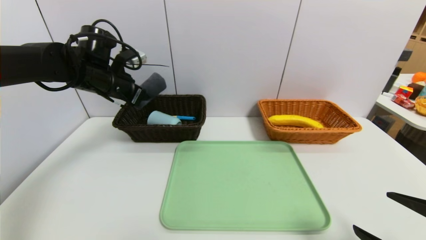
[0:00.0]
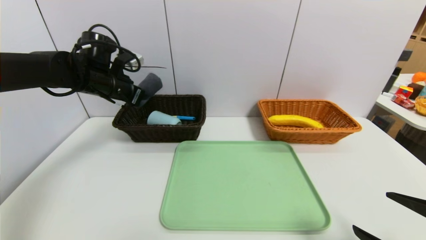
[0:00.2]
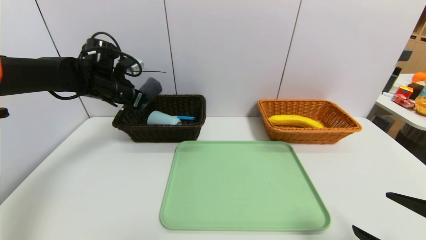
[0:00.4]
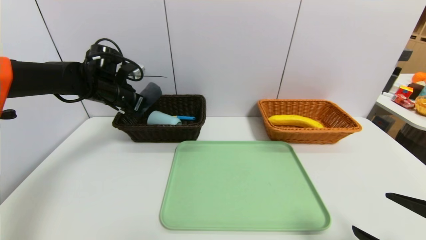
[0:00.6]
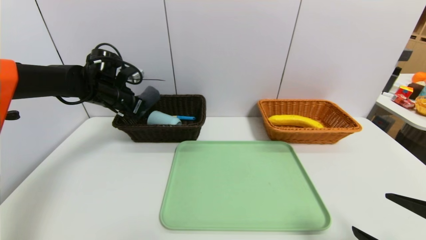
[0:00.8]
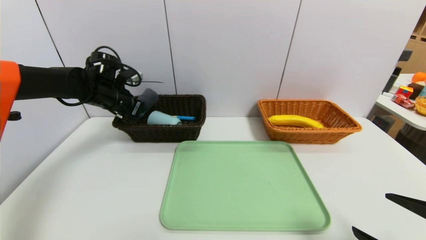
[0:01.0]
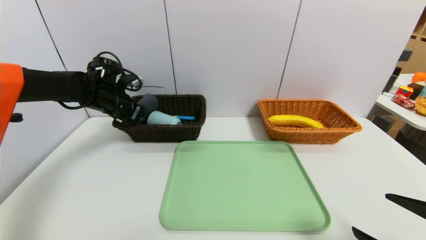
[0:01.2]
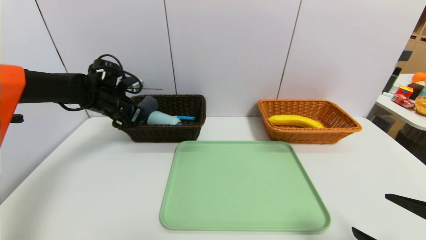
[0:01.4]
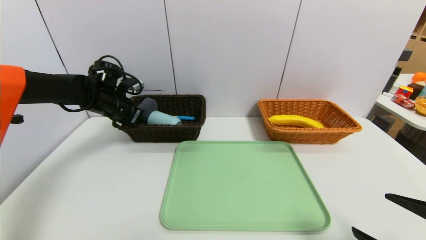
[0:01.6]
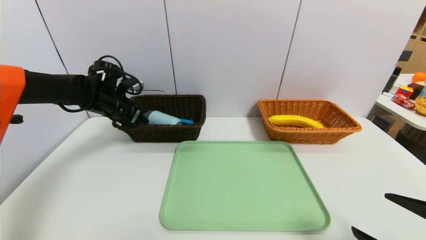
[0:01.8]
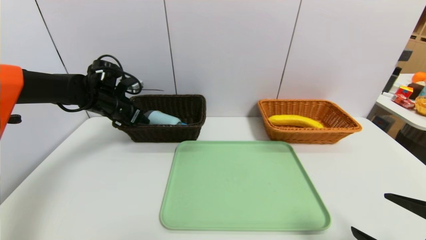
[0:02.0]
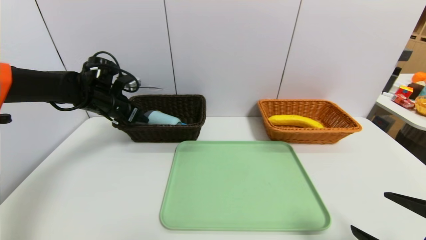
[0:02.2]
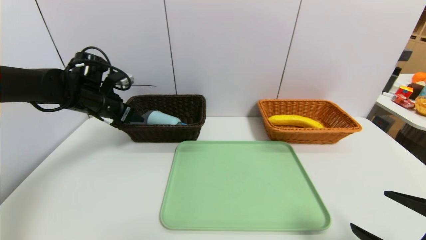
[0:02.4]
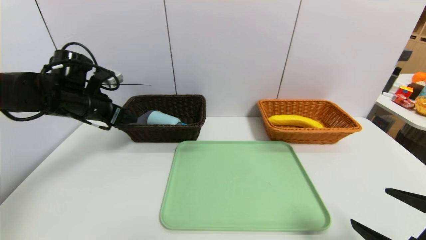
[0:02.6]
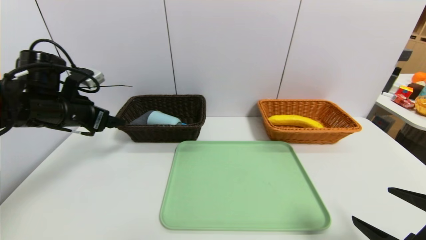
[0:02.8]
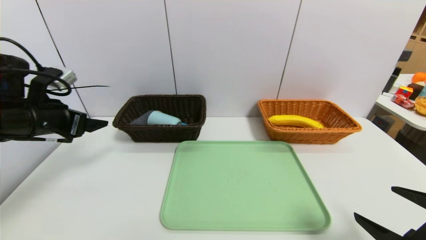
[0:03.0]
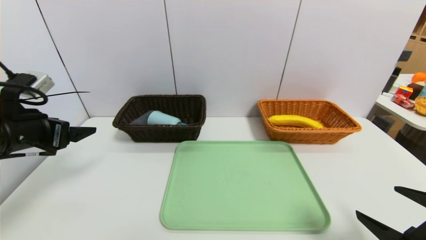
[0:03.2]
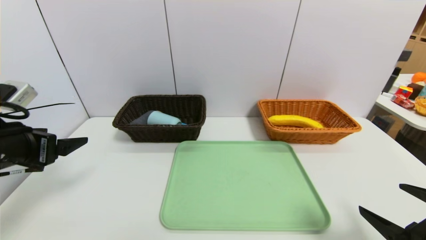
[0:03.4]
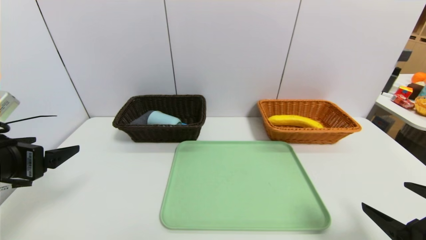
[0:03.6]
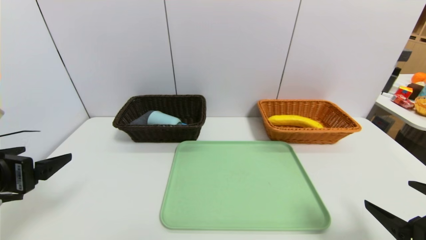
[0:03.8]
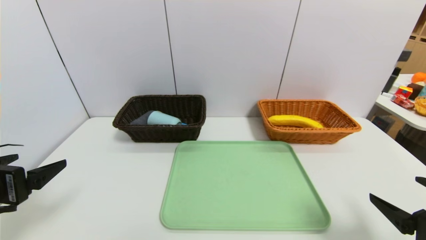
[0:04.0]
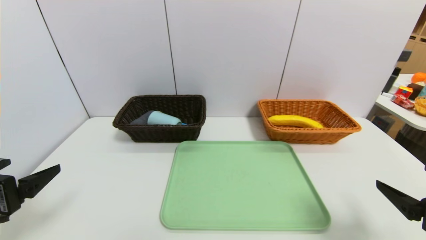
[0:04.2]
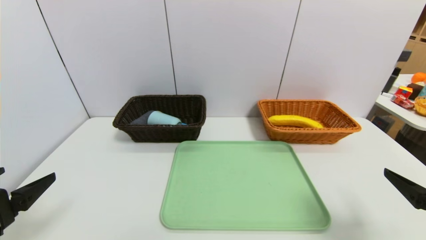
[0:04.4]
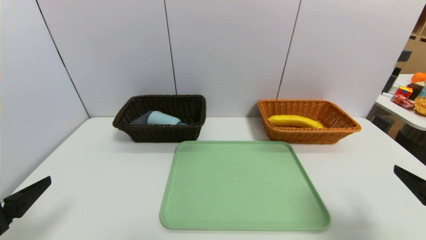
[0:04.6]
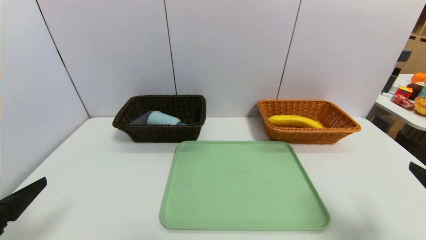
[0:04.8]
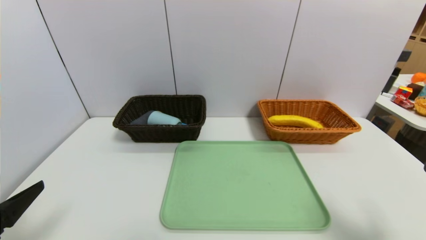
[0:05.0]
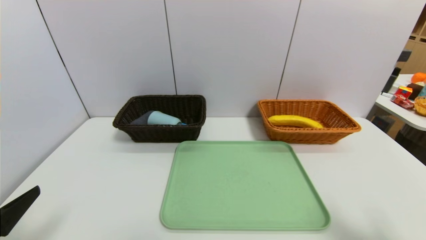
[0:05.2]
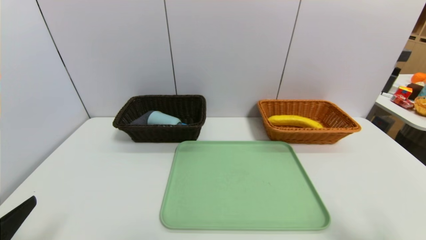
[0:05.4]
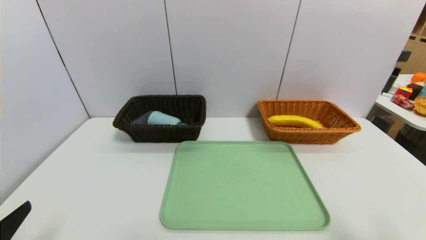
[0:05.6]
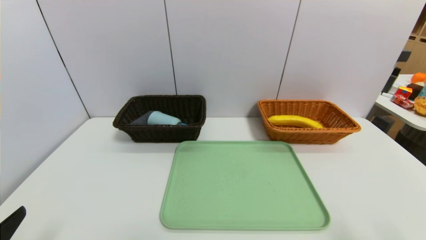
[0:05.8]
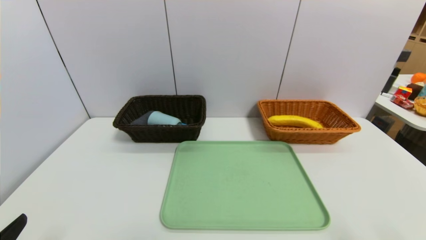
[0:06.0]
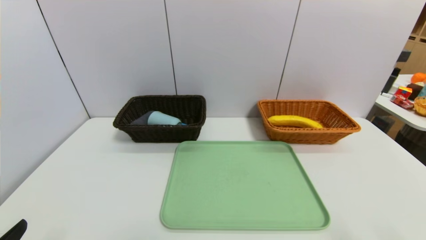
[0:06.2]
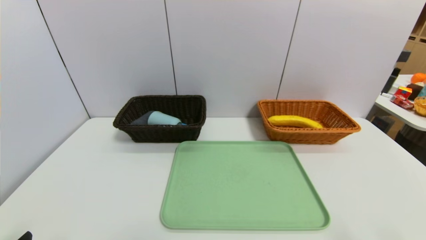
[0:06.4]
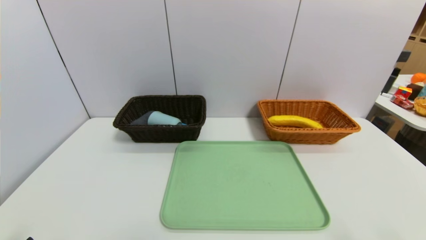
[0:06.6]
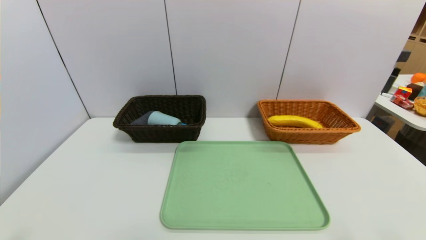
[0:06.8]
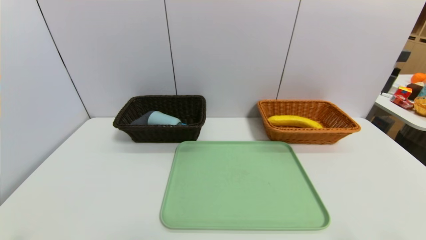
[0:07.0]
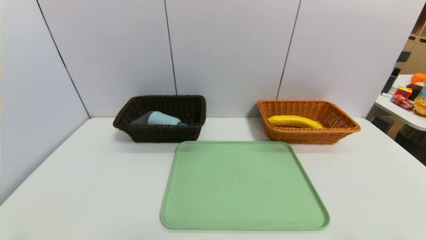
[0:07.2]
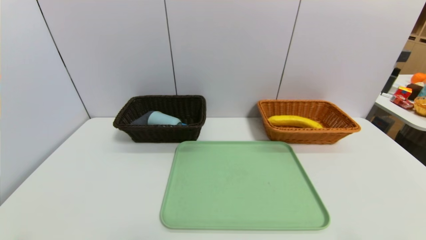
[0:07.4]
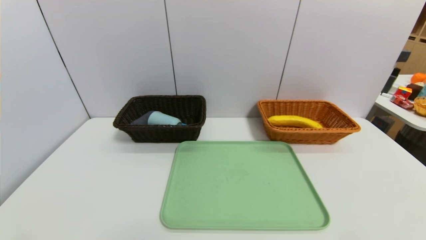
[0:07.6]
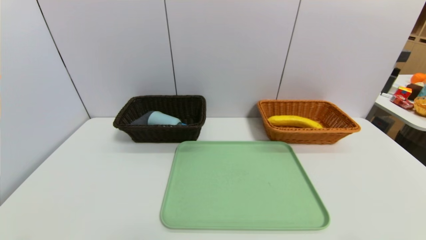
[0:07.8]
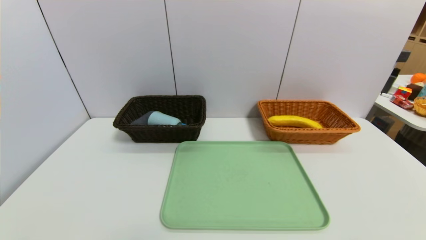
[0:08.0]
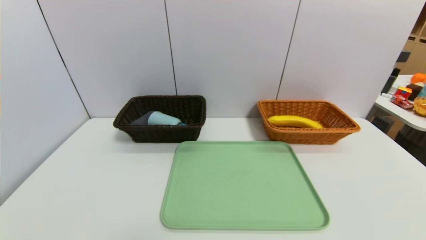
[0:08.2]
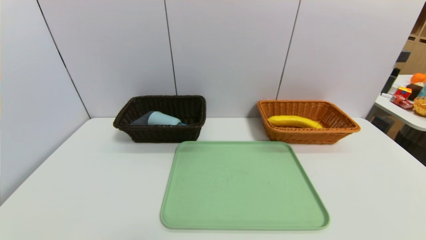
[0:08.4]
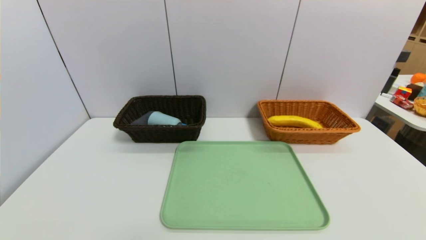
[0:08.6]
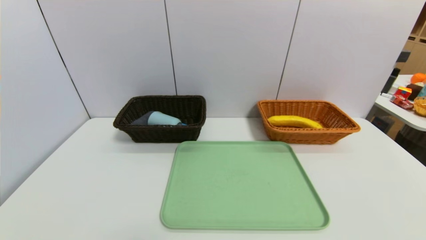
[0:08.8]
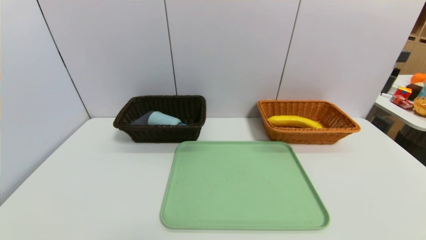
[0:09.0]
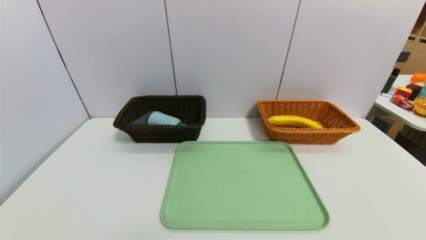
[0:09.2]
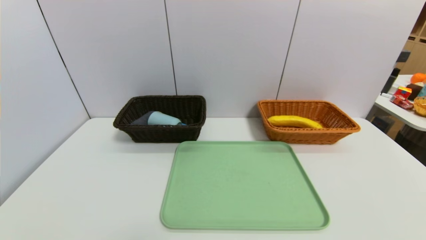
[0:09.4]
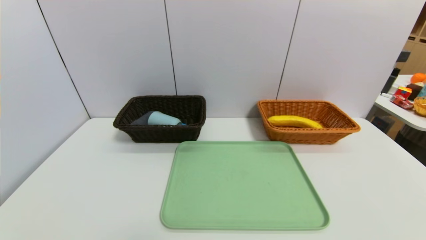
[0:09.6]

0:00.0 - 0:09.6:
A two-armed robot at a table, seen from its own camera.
Task of the whole recording: place the food in the right basket with the right gripper, and place the non food items in the left basket with the left gripper.
Step, 0:00.0 - 0:03.0: Grasp the grey towel and put it in the left basket.
0:00.0 - 0:01.6: The left gripper travels downward by some 5 cm, and opens up.
0:01.6 - 0:03.2: The left gripper heads backward, covering about 20 cm, and opens its fingers.
0:03.2 - 0:04.8: The left gripper is displaced backward by some 15 cm; the right gripper ends up approximately 5 cm from where it was.
0:04.8 - 0:06.4: The two grippers go some 5 cm backward.

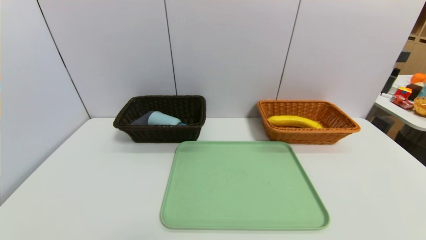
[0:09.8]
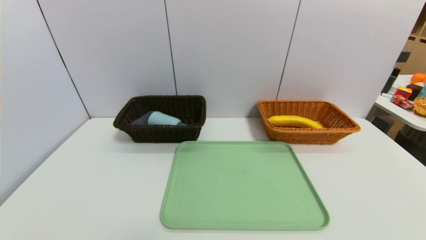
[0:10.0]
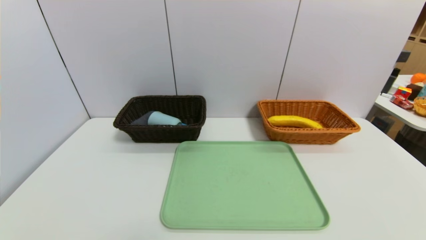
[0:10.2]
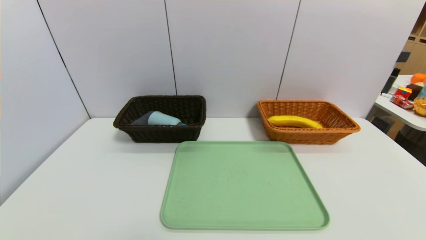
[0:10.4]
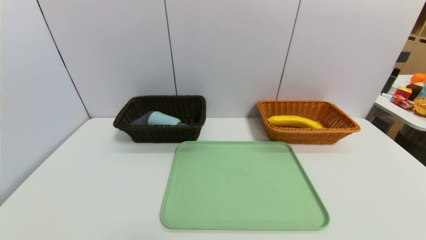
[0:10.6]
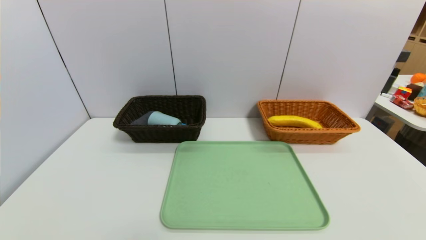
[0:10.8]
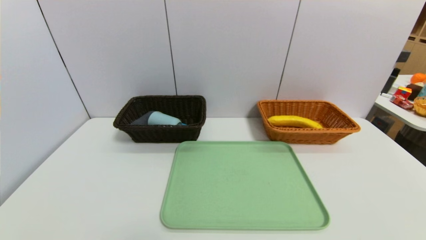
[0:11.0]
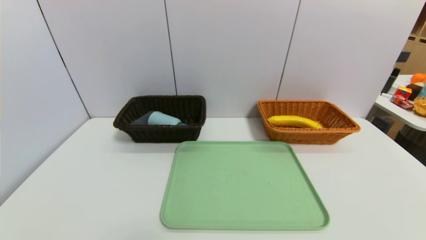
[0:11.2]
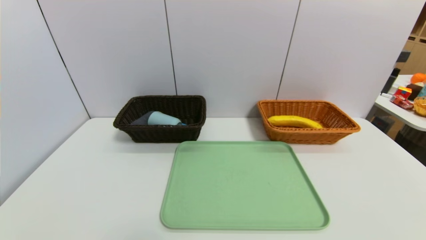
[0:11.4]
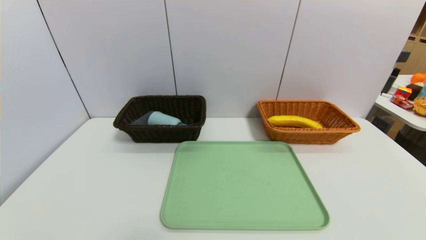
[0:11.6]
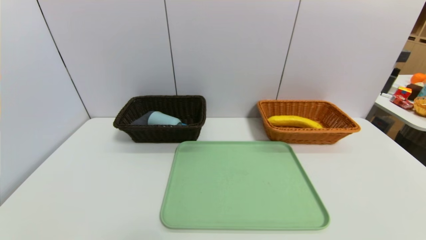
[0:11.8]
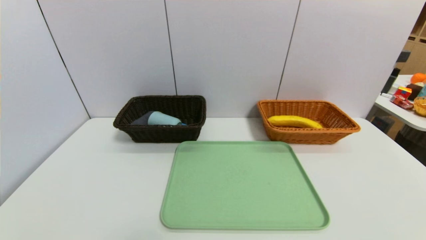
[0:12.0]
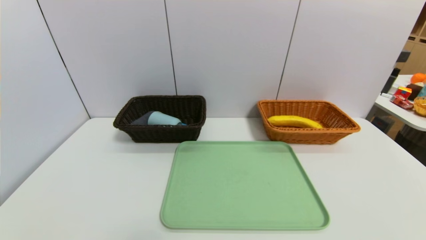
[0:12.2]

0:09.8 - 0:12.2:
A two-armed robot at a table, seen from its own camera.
Task of the whole recording: place the food in the right basket with the right gripper, and place the non food items in the left basket with the left gripper.
0:11.0 - 0:12.2: Both grippers stay put.
